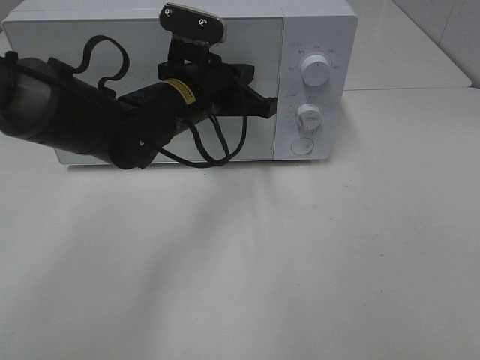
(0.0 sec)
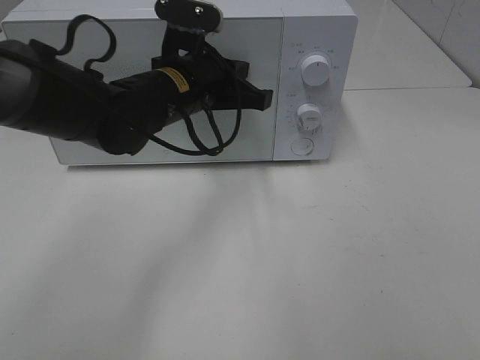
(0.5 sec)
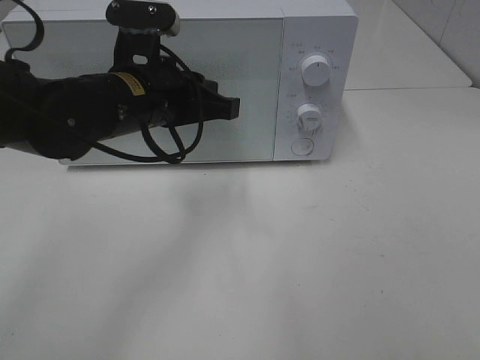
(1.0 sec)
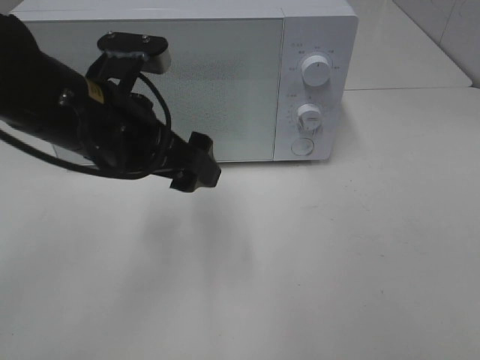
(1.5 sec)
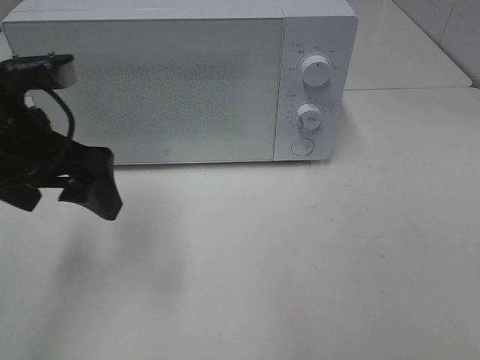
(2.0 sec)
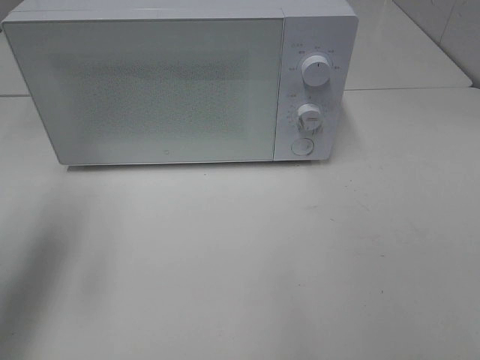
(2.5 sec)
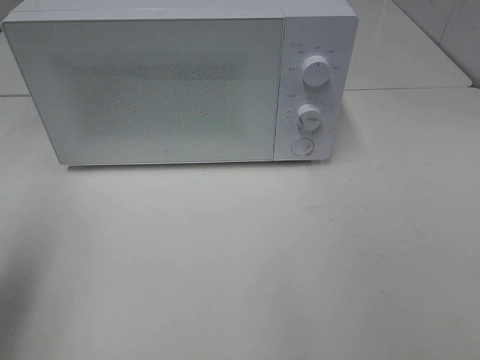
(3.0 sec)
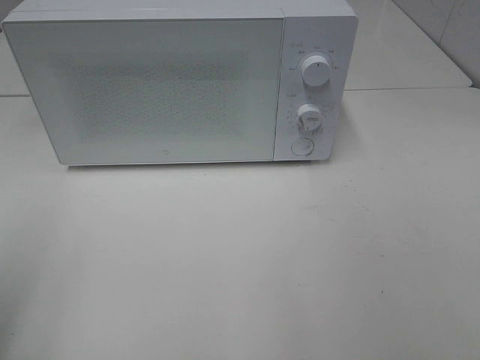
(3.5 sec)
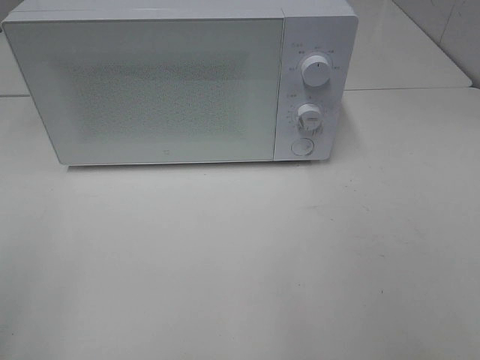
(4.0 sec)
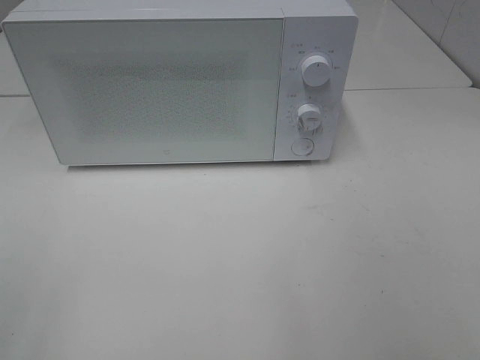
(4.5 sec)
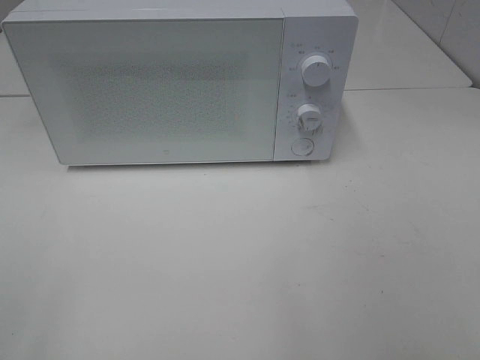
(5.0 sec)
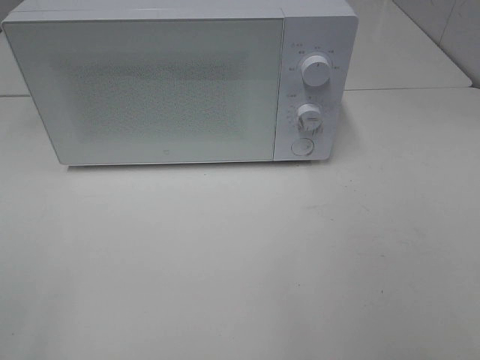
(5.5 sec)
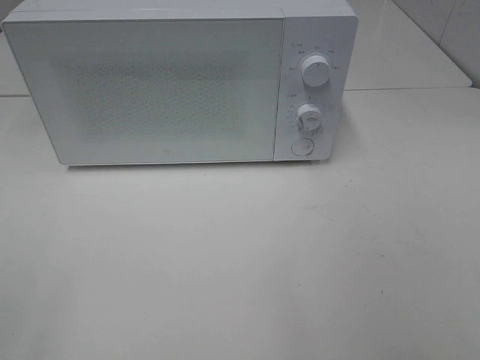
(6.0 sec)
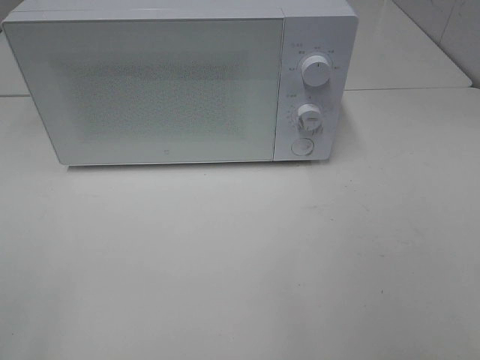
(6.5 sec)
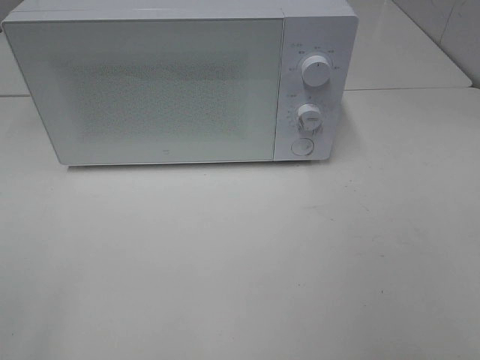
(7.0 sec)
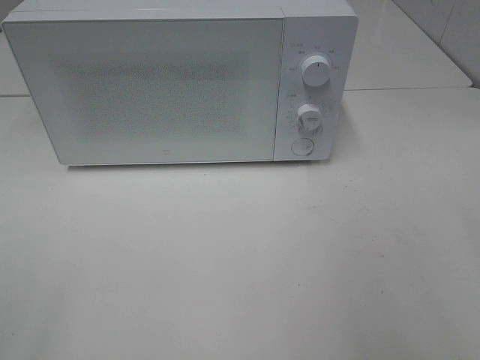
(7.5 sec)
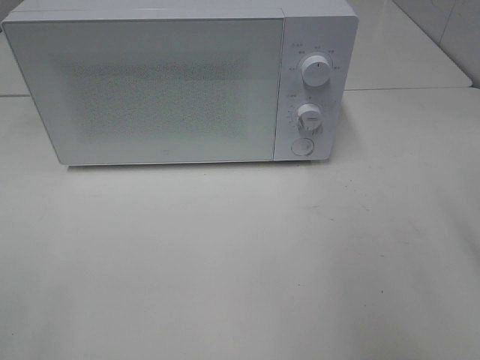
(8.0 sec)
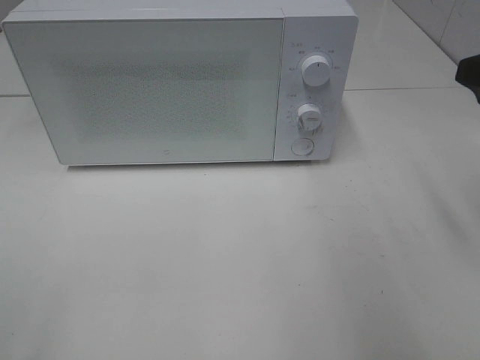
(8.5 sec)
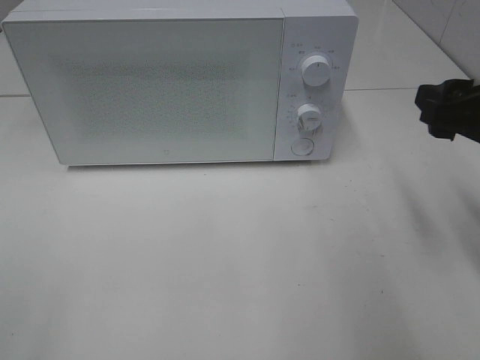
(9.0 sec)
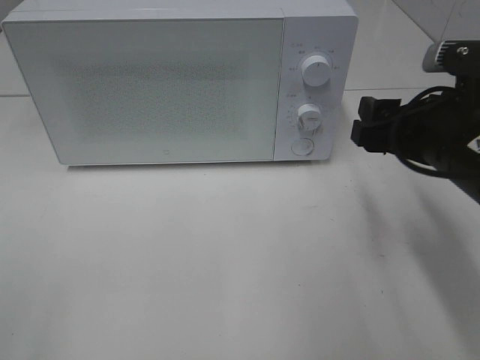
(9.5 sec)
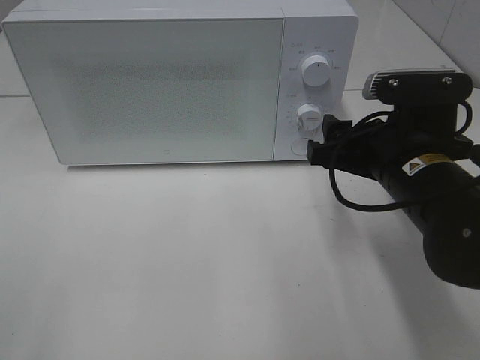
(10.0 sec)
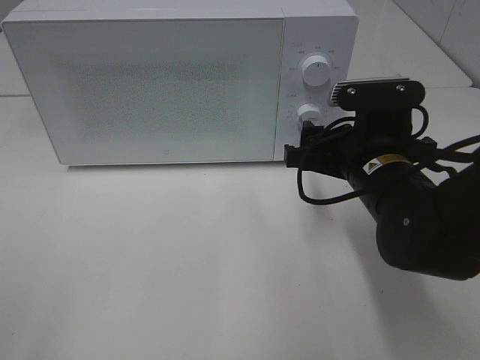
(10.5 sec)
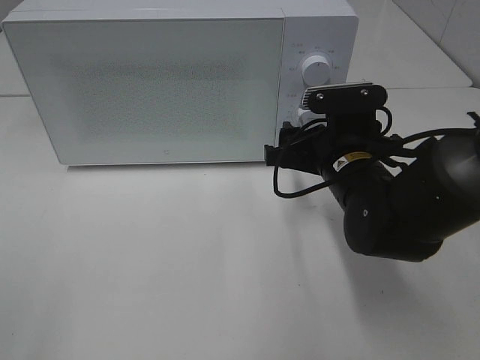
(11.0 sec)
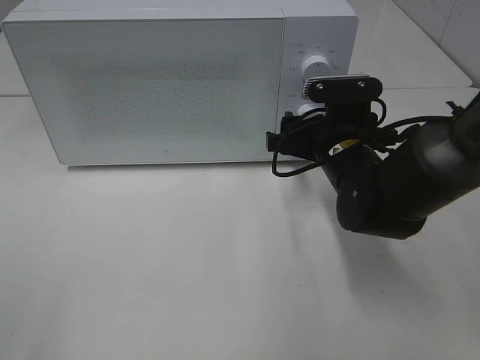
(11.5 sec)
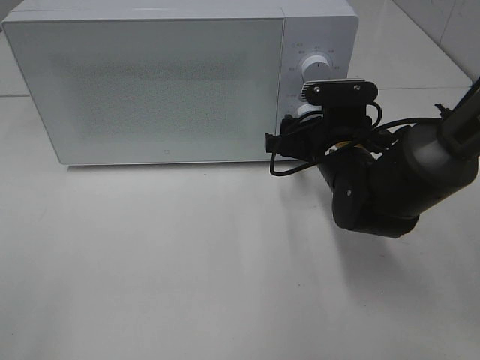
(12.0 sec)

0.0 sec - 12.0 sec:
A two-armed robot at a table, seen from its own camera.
Task of the whole recording: Heat Sandwich.
0.0 sec - 2.0 sec: The left gripper travels to the left, backward and upward by some 20 cm, and opens.
2.0 sec - 4.0 sec: The left gripper travels backward and to the left by approximately 25 cm.
8.0 sec - 10.0 sec: The right gripper heads downward, to the left and forward, covering some 20 cm.
10.0 sec - 12.0 sec: The right gripper heads forward and downward, covering roughly 10 cm.

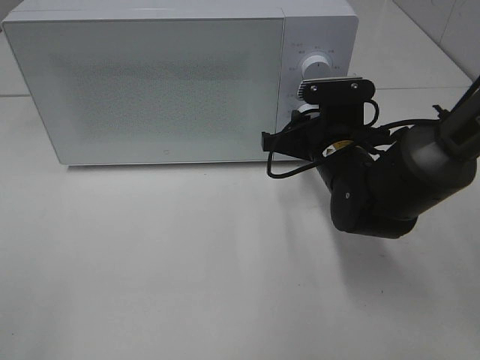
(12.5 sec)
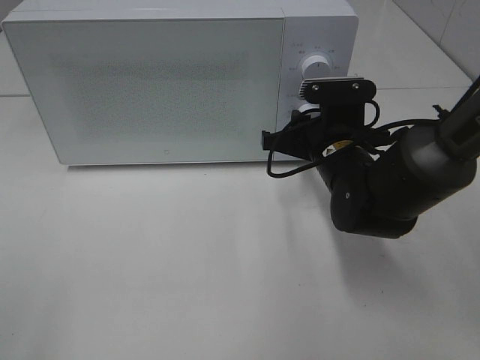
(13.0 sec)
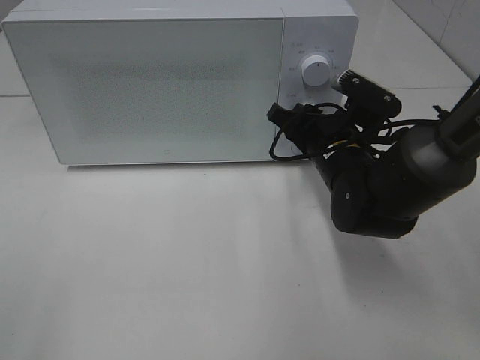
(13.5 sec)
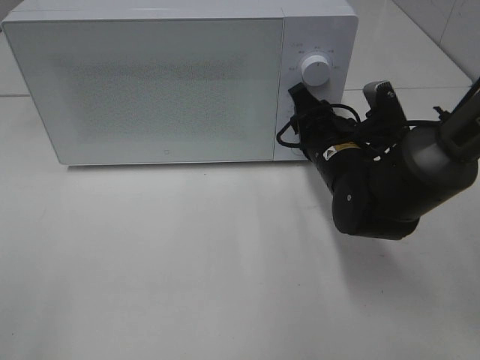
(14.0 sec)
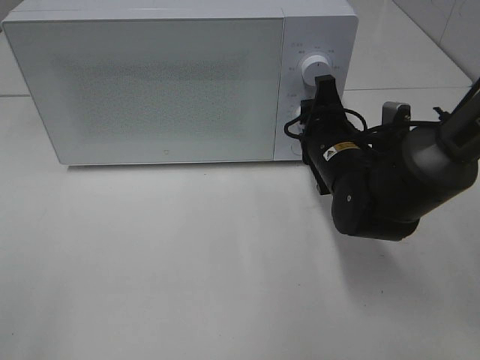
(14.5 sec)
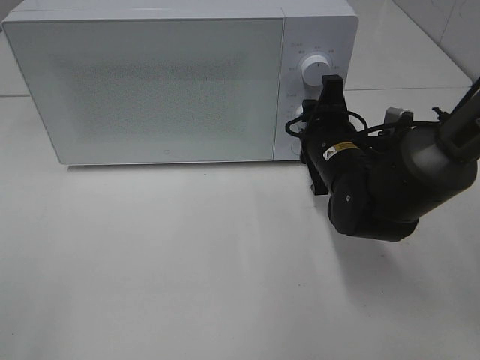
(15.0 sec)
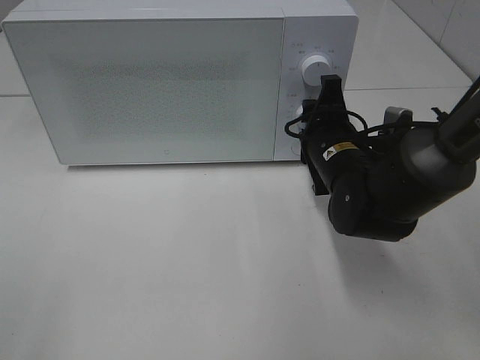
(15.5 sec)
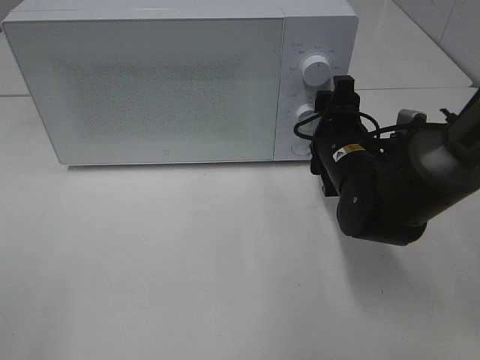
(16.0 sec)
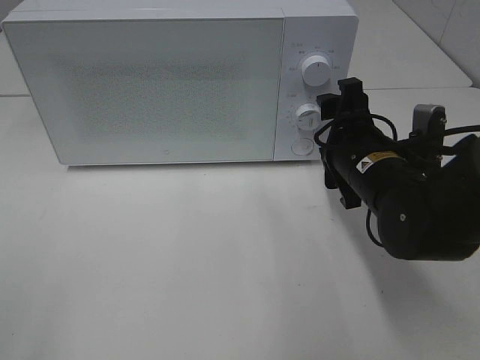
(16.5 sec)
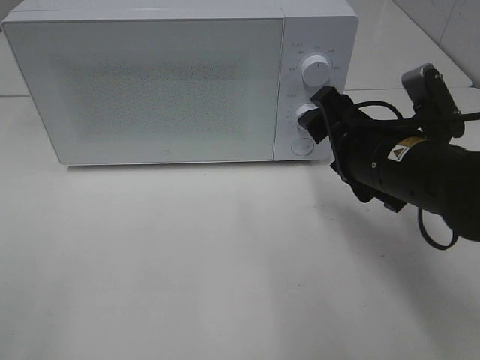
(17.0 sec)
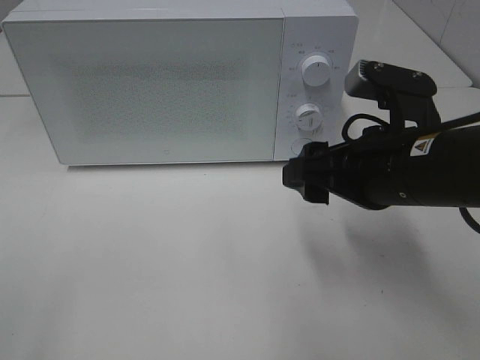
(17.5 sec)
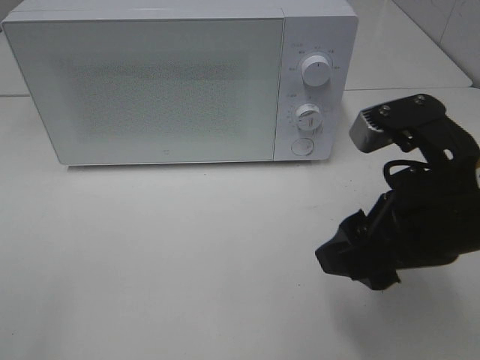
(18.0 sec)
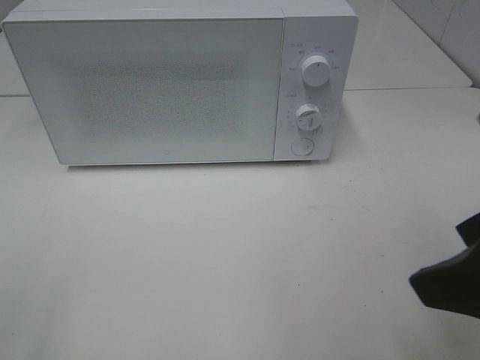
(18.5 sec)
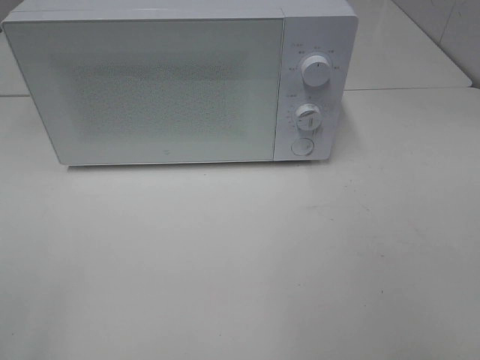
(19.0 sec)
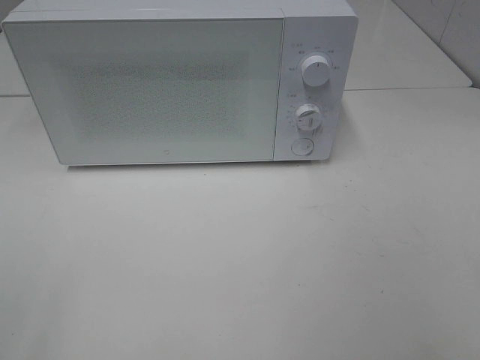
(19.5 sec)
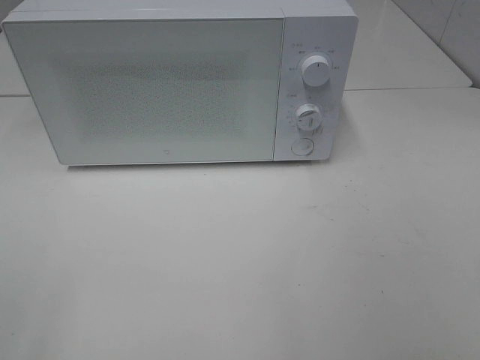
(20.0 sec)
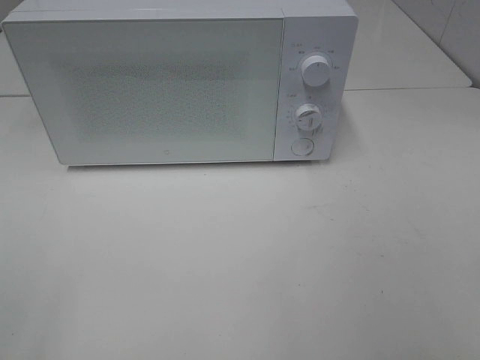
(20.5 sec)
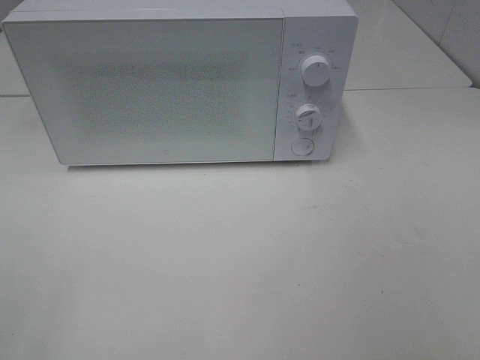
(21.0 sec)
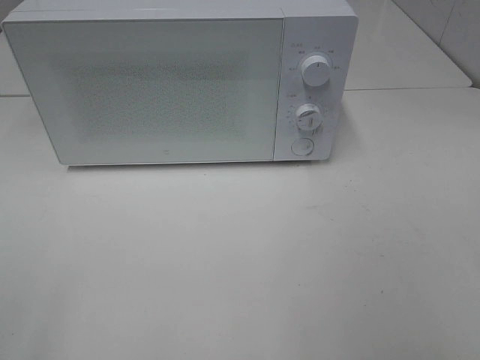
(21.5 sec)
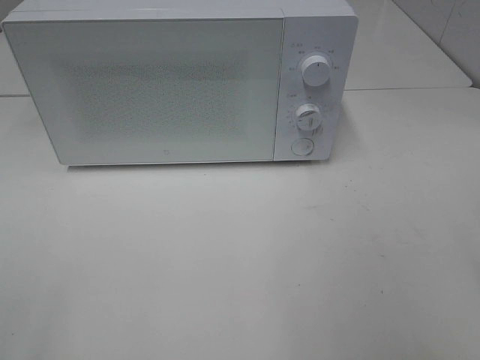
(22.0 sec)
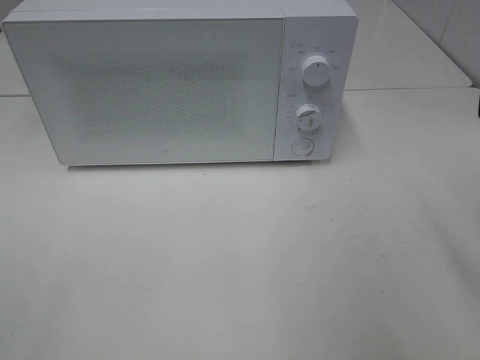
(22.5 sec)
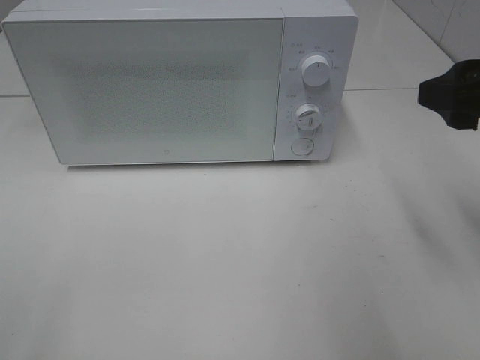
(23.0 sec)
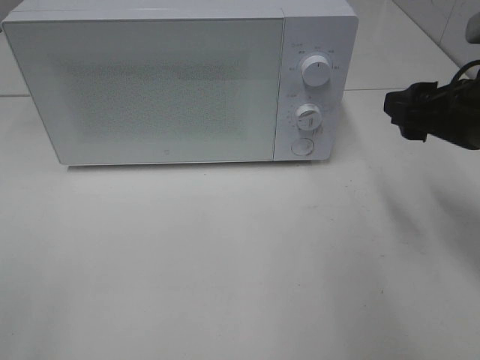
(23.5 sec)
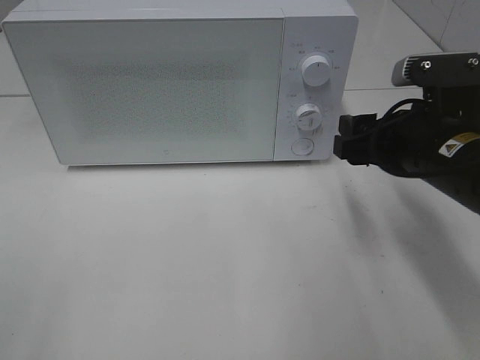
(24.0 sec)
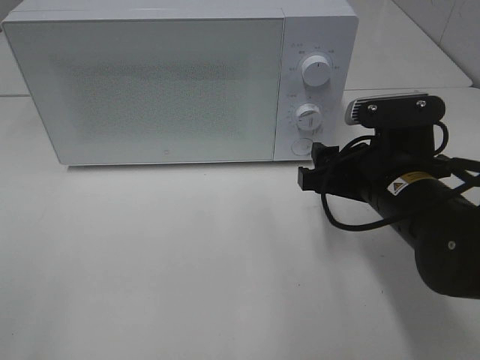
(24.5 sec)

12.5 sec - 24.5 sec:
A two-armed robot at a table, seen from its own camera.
Task of the whole recording: Heat Sandwich.
Step, 12.5 sec - 16.0 sec: Right hand: twist timer button.
14.5 sec - 16.5 sec: The right gripper changes place by roughly 5 cm.
16.5 sec - 18.5 sec: The right gripper travels backward and upward by approximately 25 cm.
18.5 sec - 20.5 sec: The right gripper shifts about 15 cm backward and to the right.
22.5 sec - 24.5 sec: The right gripper heads downward, to the left and forward, covering some 20 cm.

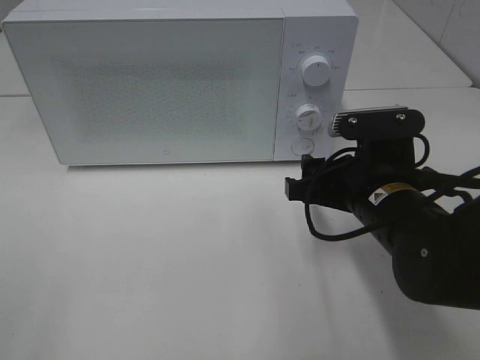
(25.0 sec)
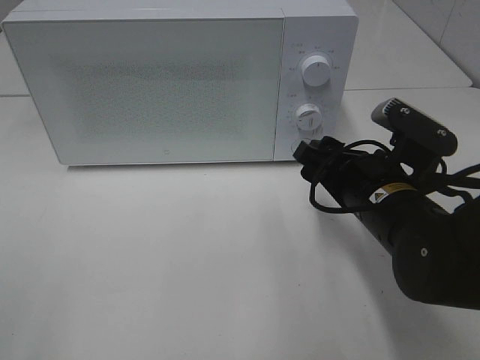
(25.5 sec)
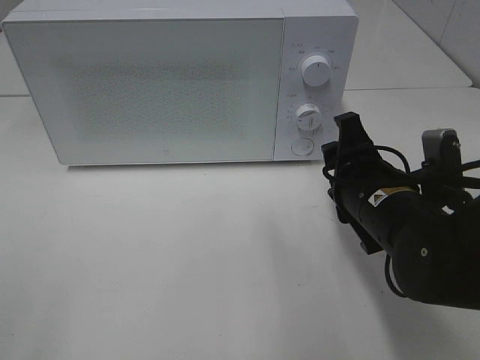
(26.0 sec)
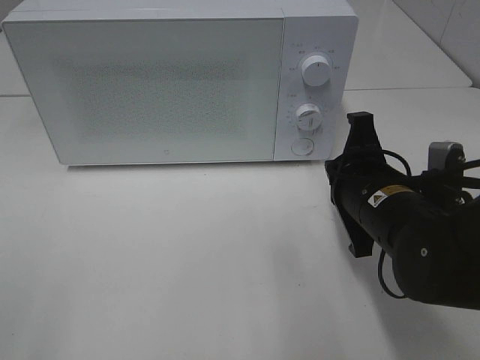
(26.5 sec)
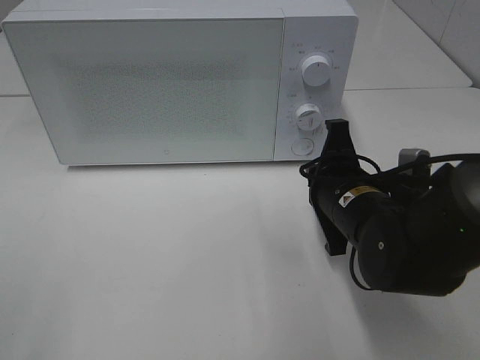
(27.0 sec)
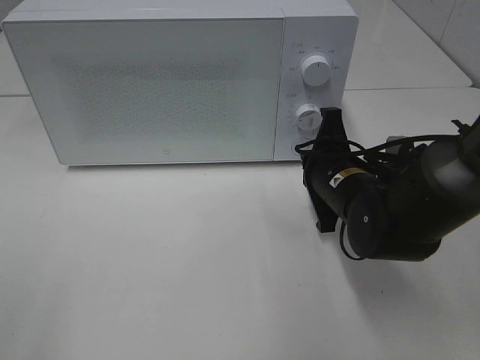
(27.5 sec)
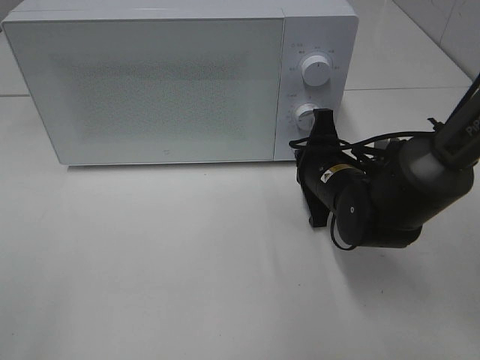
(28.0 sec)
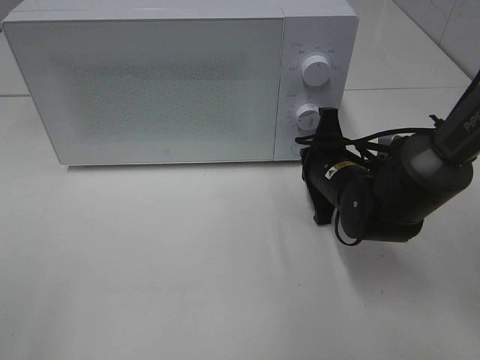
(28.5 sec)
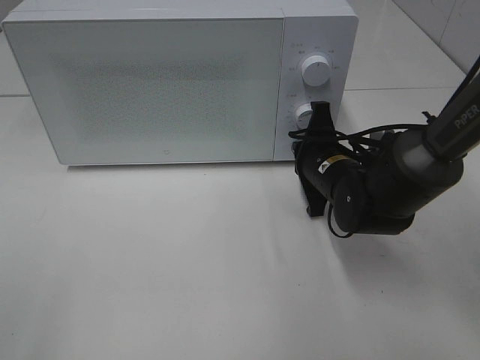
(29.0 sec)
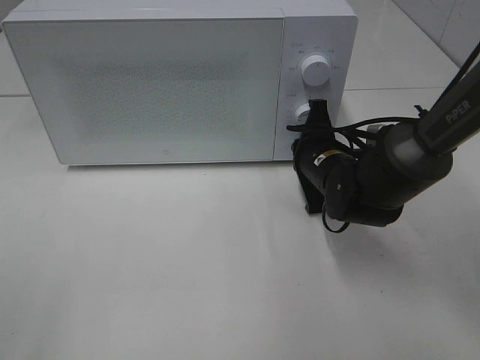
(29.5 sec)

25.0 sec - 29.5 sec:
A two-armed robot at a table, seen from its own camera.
Task of the whole recording: Heat Sandwich.
25.0 sec - 27.0 sec: The right gripper closes.
27.0 sec - 29.5 sec: The right gripper is displaced forward by about 10 cm.
